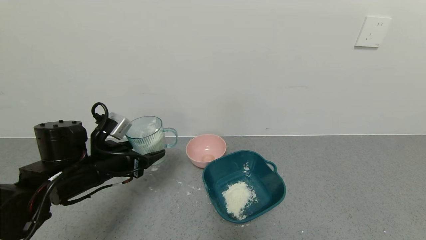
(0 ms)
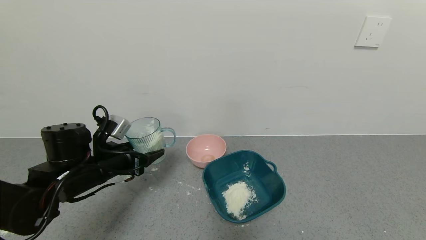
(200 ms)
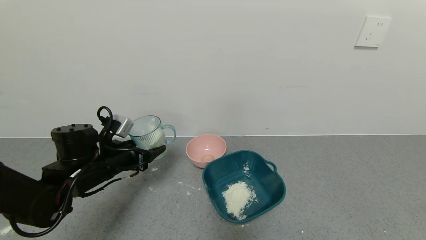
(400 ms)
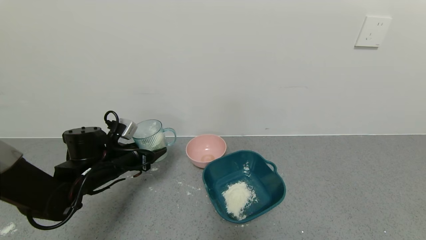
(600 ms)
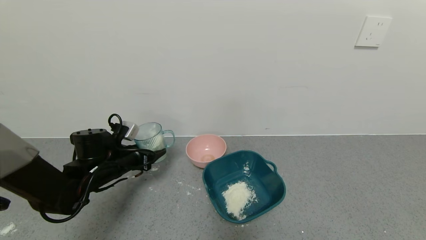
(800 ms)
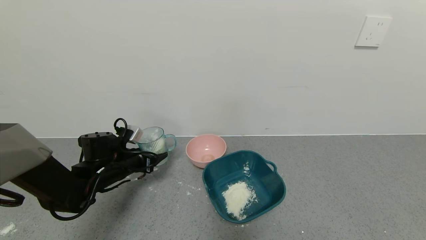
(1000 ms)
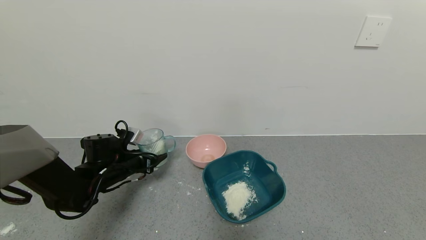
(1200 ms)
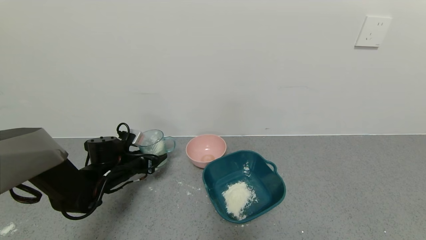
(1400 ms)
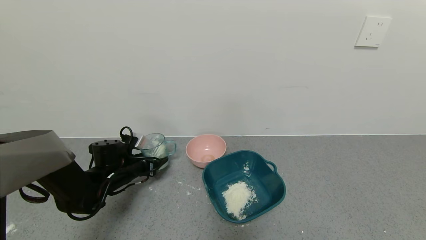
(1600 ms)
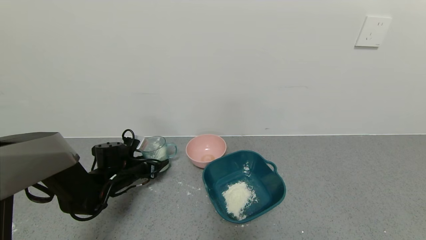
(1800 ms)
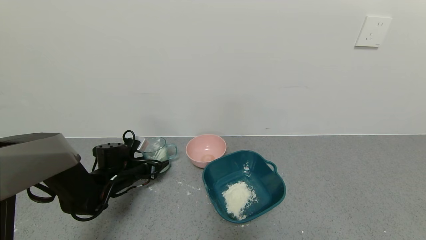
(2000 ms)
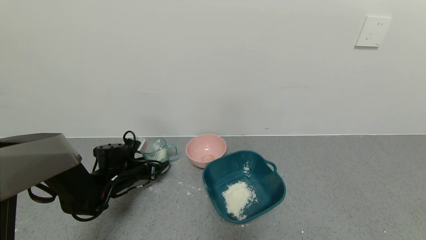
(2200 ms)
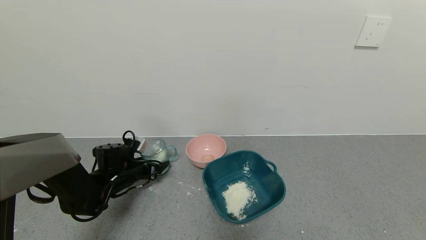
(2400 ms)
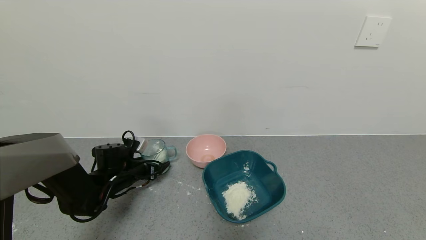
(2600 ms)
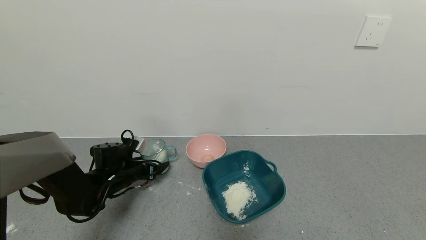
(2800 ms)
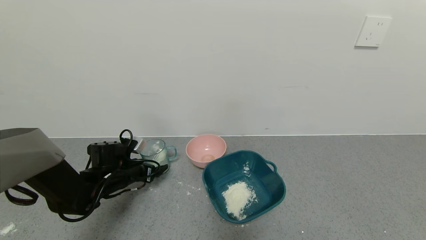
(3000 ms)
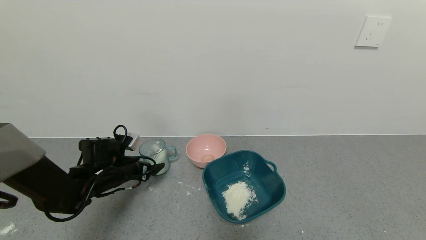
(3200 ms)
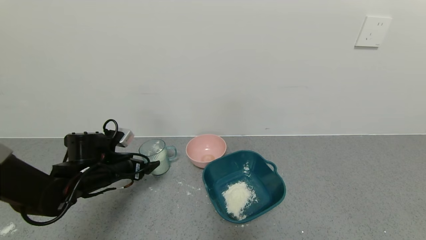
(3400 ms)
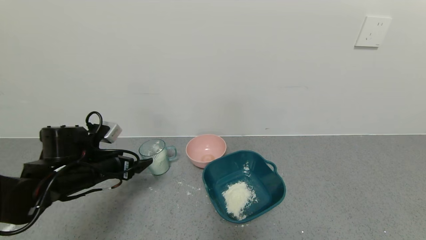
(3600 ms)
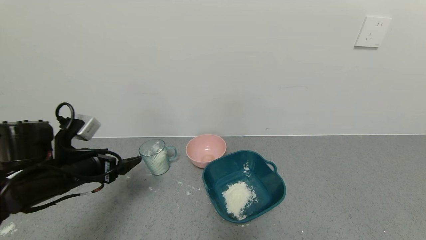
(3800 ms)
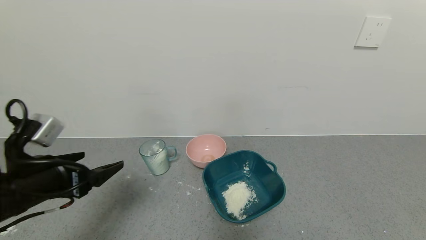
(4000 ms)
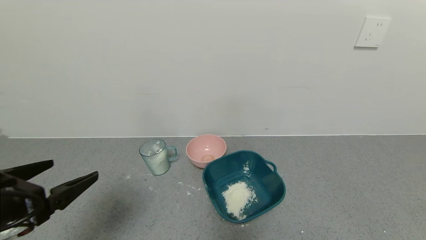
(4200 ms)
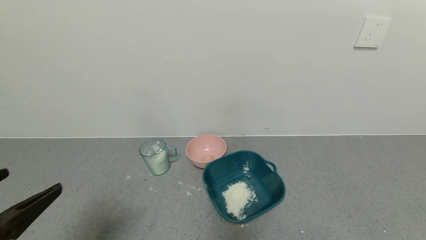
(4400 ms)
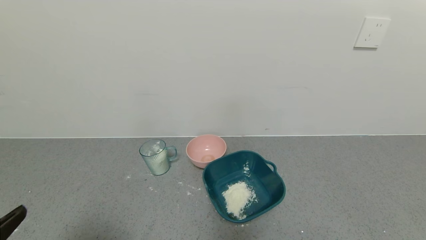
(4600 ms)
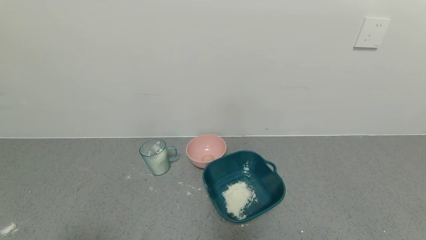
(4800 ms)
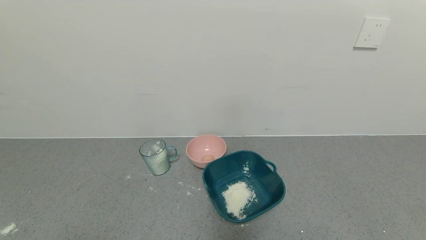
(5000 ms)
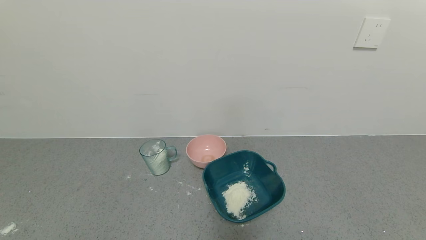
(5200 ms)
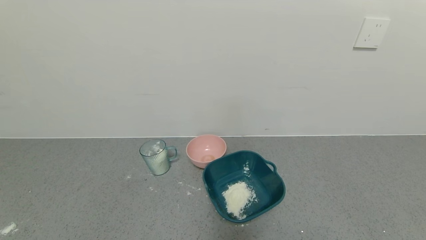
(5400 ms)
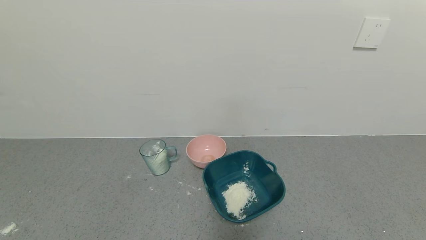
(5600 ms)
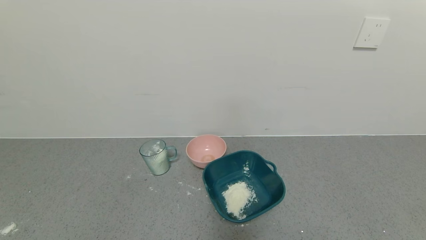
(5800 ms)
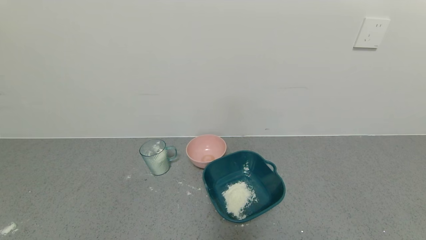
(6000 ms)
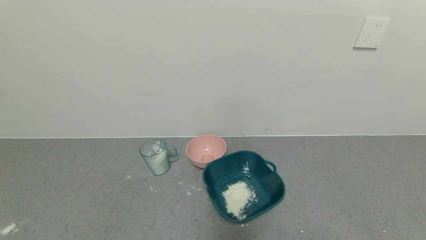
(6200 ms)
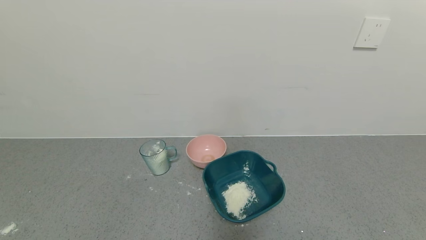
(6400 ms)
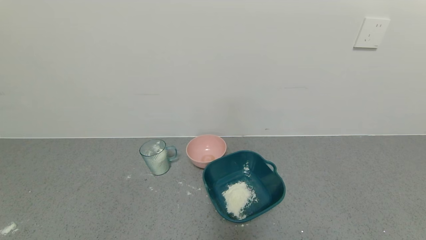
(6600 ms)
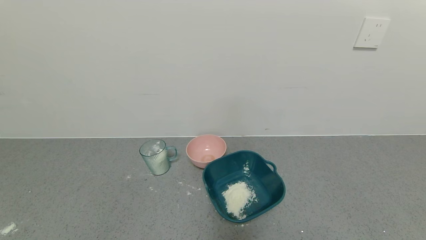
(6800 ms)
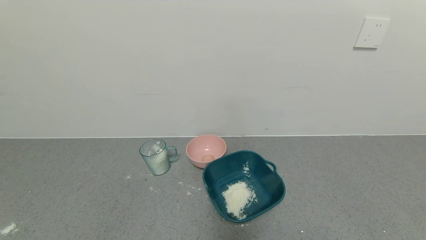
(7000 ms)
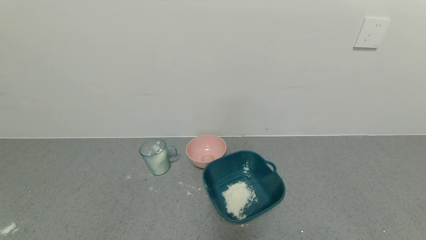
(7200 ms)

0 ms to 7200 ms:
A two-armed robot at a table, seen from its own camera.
Task of the whole recording: use a gripper to pick up the cup and pour the powder into a bowl or tray.
Step, 0 ms to 3200 ms: Place the glass cup down with the left gripper.
0 ms to 1400 ms: The left gripper heads downward and forward, covering roughly 15 cm.
1400 ms to 2800 ms: The left gripper opens.
2800 ms to 4400 ms: The left gripper shifts approximately 35 cm backward and upward.
4400 ms to 5800 ms: The left gripper is displaced backward and downward by roughly 15 cm.

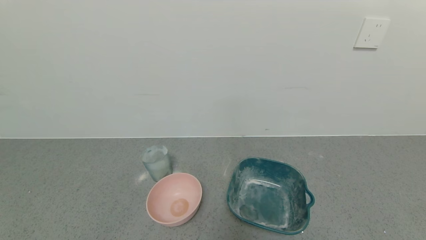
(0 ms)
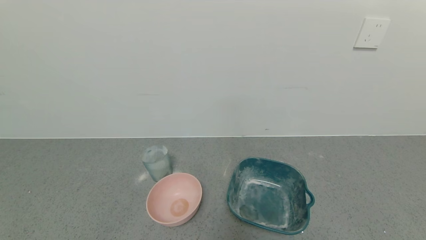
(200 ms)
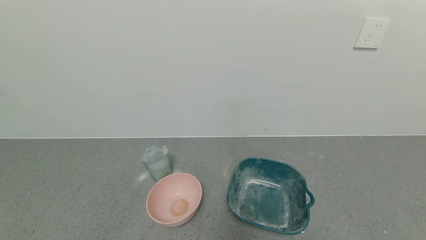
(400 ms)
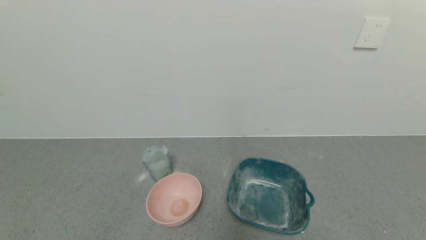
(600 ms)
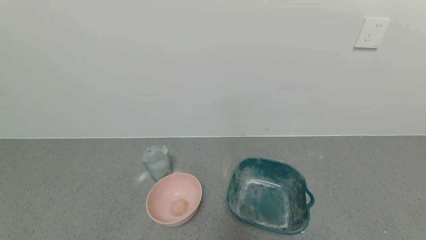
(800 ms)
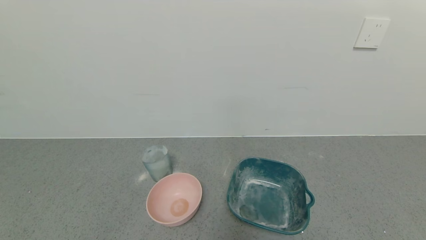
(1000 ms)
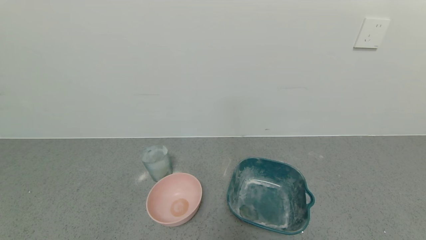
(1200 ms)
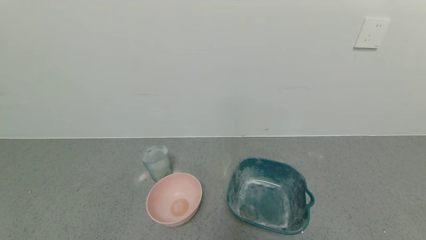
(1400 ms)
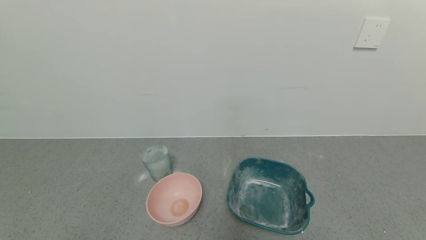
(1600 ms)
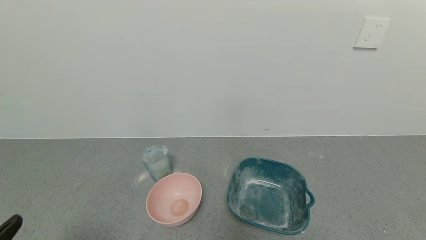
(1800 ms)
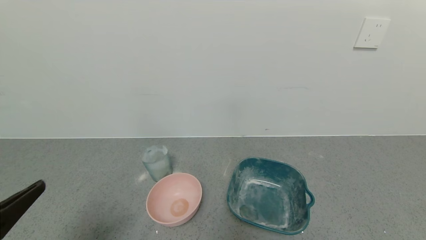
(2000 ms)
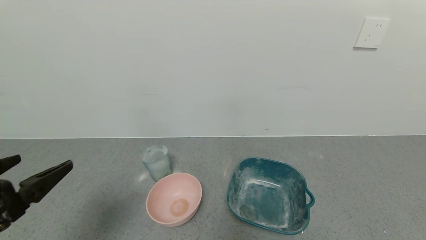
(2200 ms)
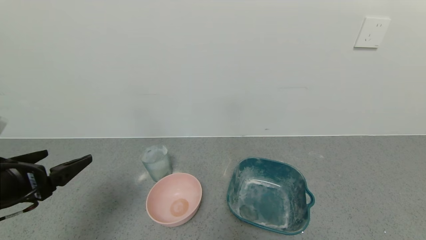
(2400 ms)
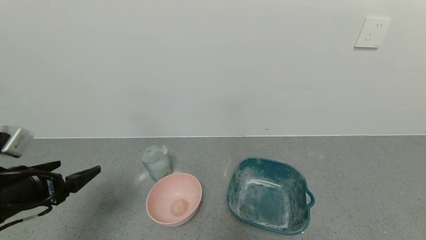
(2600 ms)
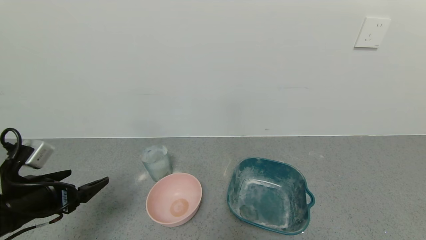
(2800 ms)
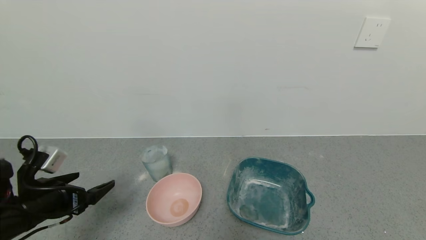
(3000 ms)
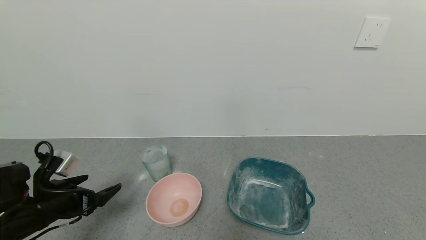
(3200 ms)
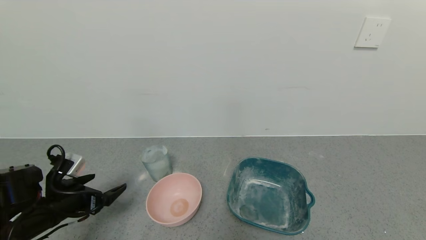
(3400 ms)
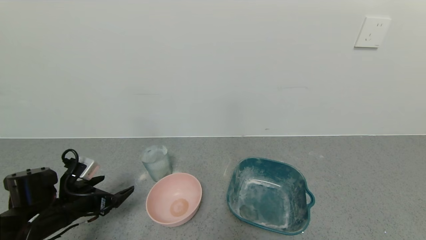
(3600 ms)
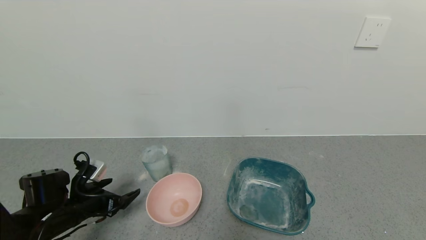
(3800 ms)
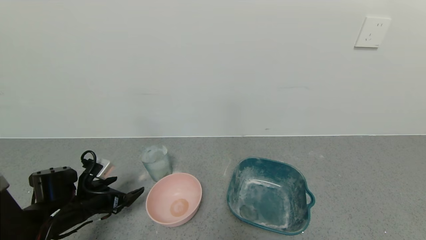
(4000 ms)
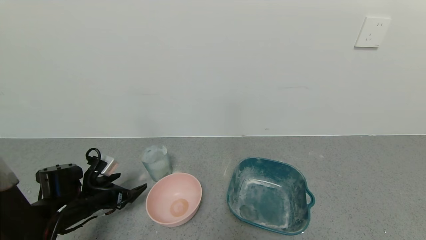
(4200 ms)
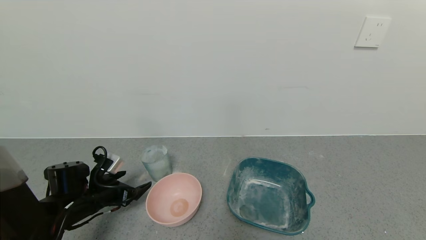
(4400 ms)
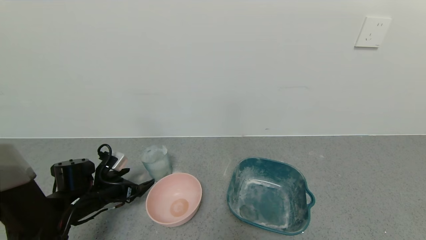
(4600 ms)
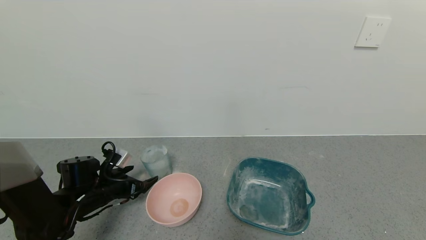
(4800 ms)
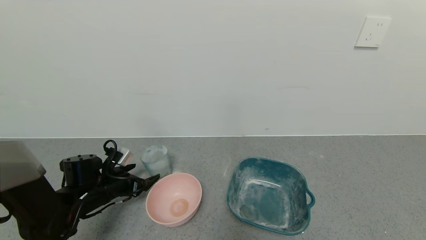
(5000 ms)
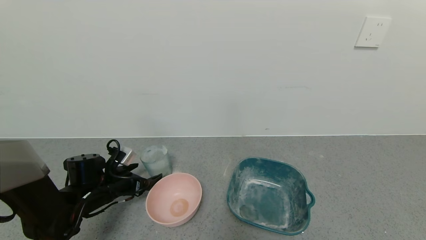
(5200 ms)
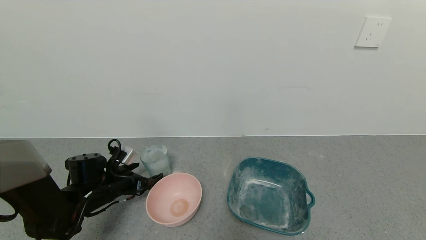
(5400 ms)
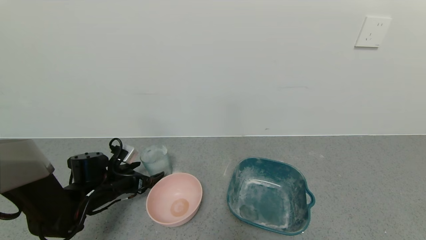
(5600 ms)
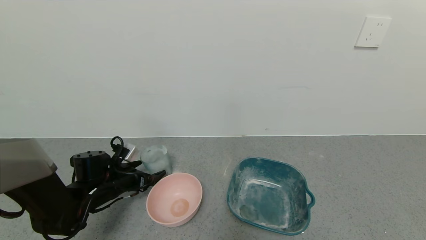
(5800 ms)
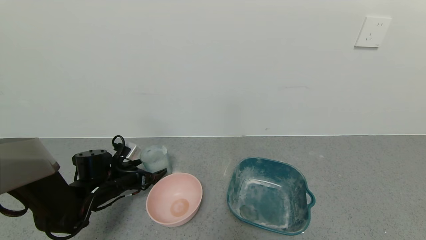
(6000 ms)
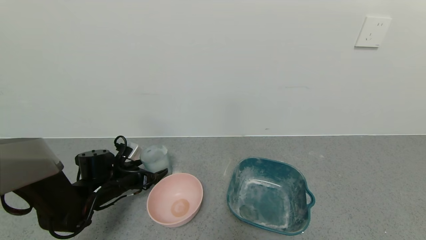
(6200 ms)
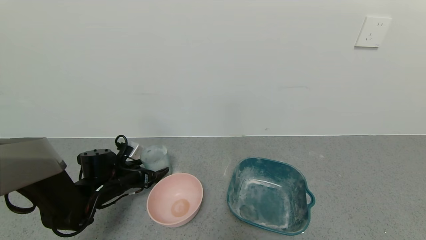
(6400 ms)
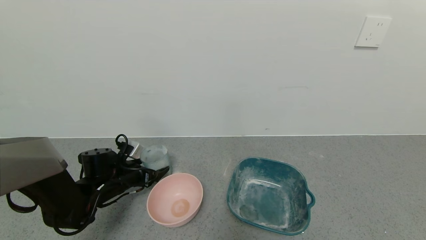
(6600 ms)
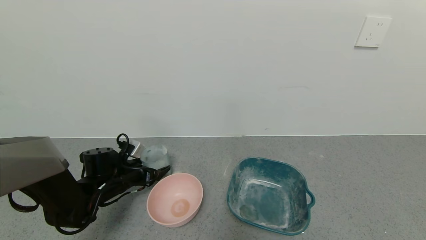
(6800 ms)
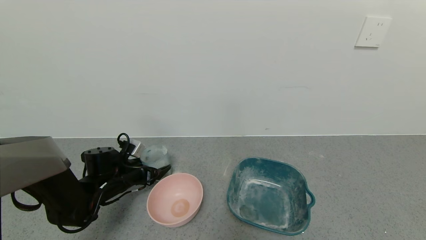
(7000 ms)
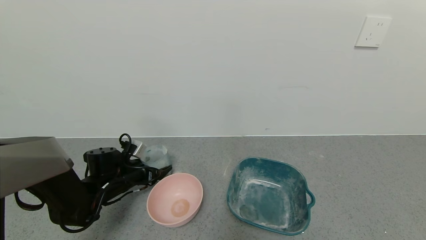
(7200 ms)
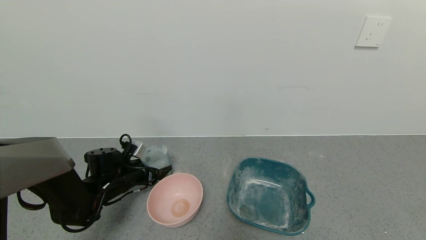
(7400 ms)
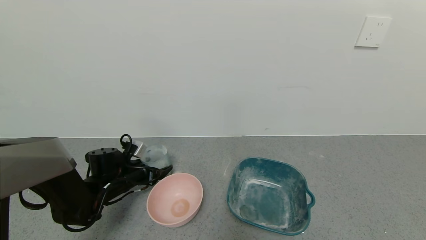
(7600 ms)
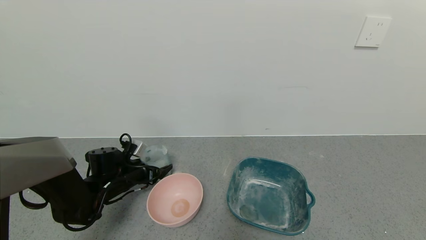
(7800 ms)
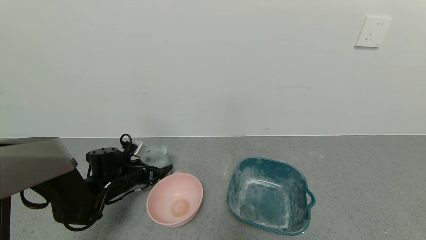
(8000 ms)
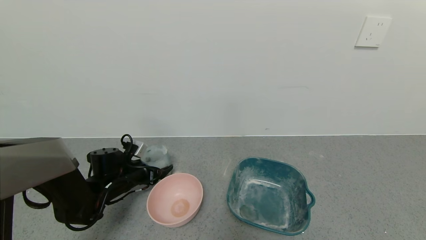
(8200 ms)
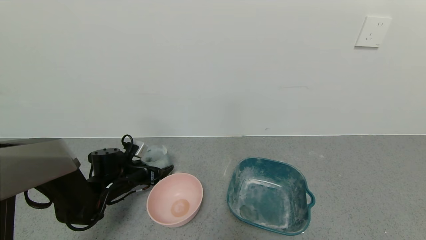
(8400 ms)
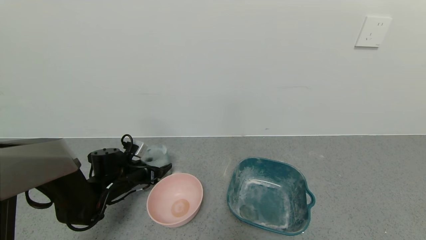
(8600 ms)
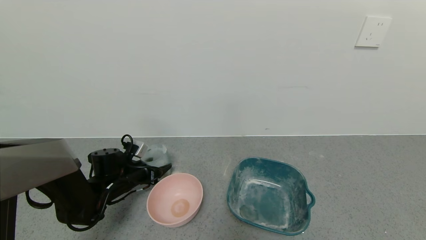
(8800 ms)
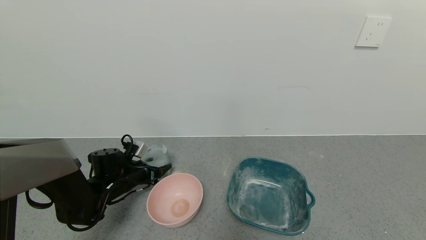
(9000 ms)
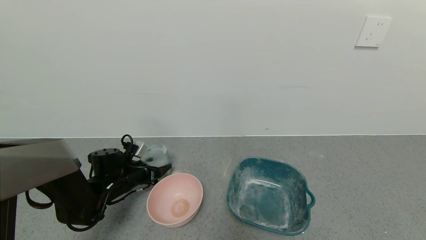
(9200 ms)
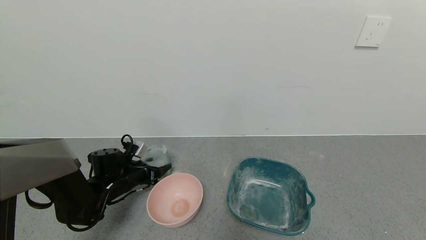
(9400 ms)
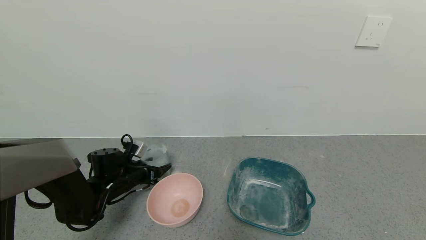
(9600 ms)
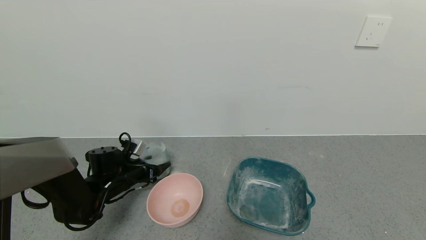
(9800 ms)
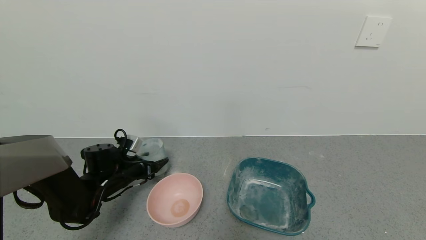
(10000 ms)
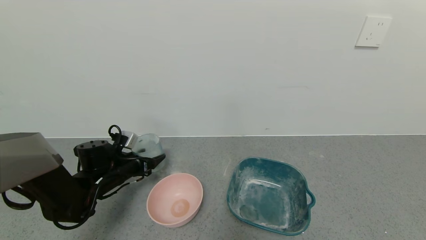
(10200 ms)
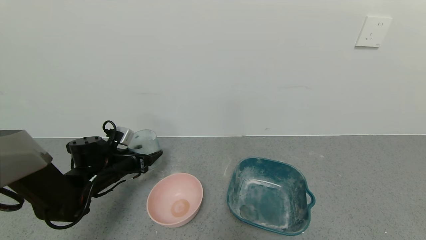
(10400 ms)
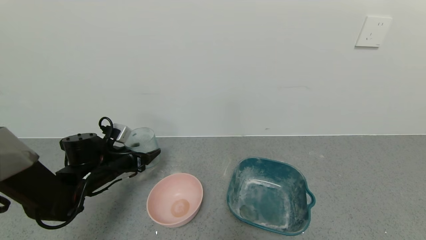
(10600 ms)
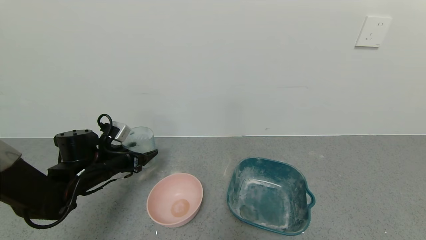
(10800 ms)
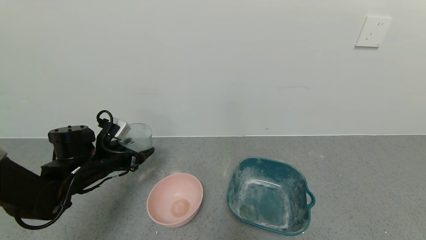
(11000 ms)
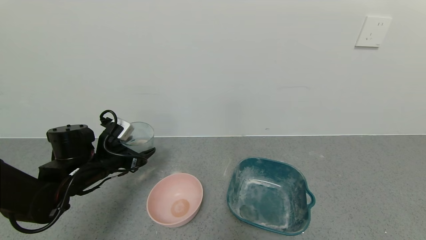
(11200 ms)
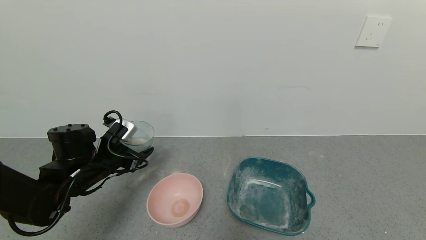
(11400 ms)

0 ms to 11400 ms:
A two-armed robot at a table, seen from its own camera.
Task of the whole recording: use a gripper to pick up the cup and pour the powder into a bowl or tray.
Step, 0 ms to 8800 ms: Grasp the glass of powder with the left gripper.
1400 ms to 2800 ms: The left gripper moves forward, some 20 cm.
2800 ms to 4200 ms: The left gripper heads downward and forward, covering some 15 cm.
4200 ms to 5600 ms: The left gripper moves roughly 5 cm.
5600 ms to 7200 ms: There are only small adjustments of the grippers.
7200 ms to 8600 ms: The left gripper closes up.
8600 ms to 10000 ms: The grippers move only a little.
10000 ms to 11400 ms: The left gripper heads upward, covering about 10 cm.
